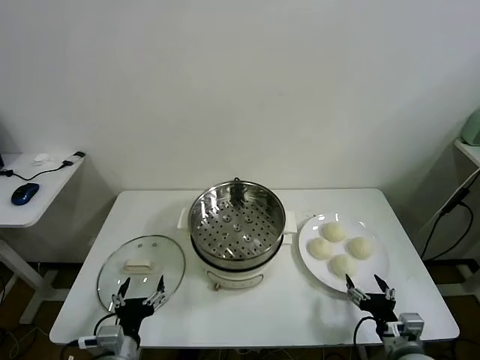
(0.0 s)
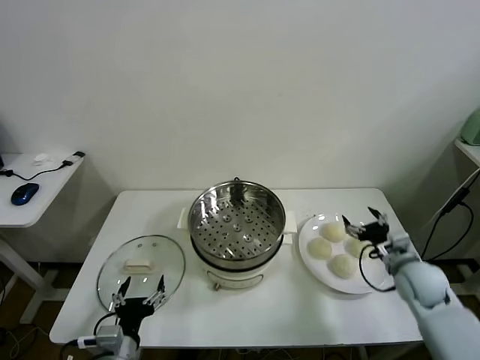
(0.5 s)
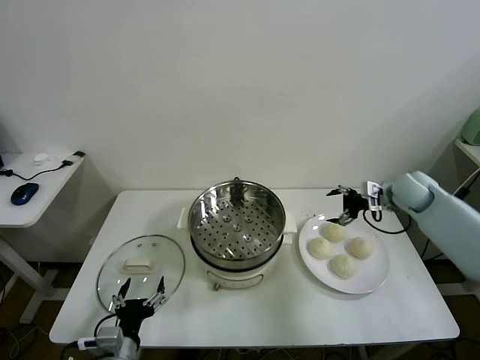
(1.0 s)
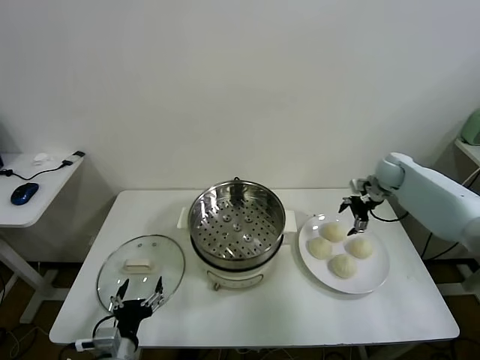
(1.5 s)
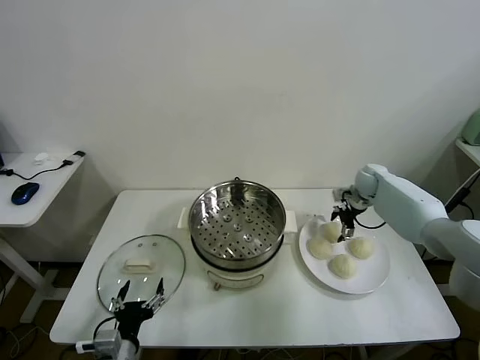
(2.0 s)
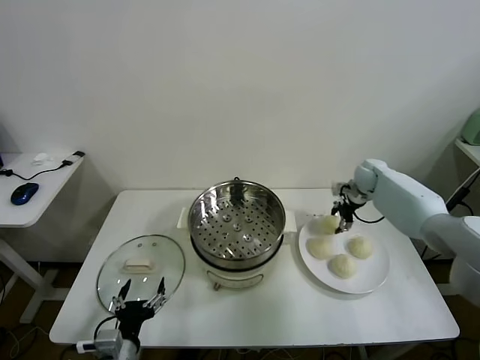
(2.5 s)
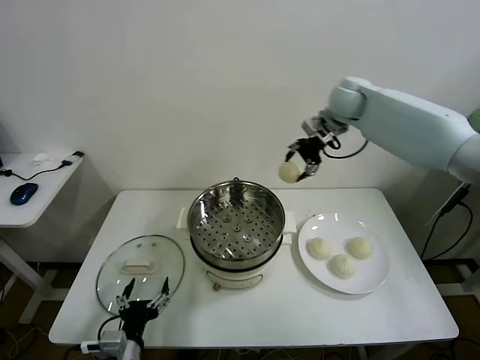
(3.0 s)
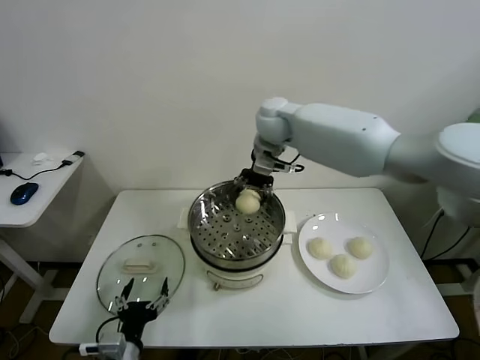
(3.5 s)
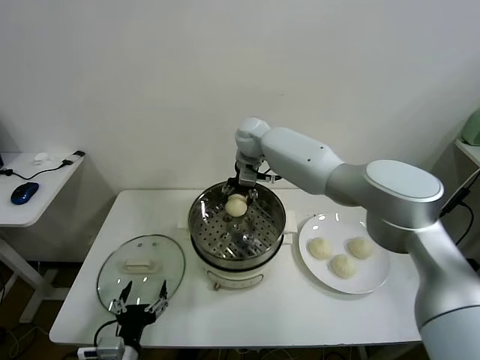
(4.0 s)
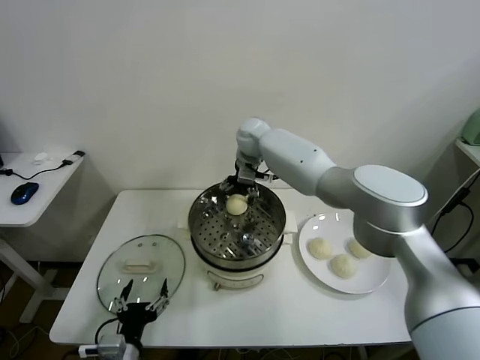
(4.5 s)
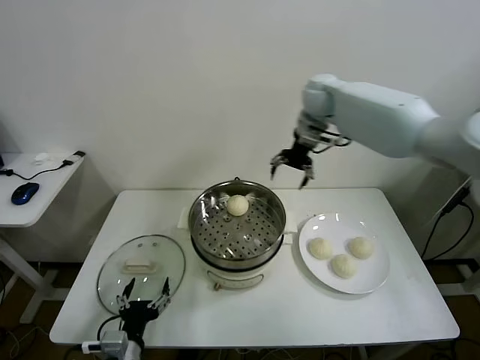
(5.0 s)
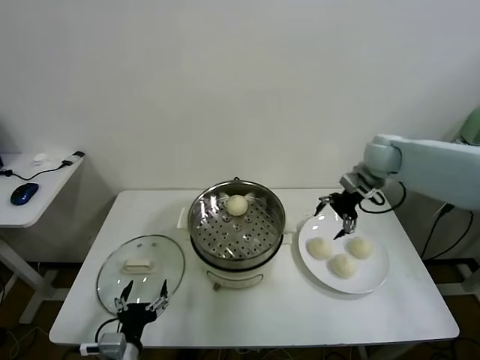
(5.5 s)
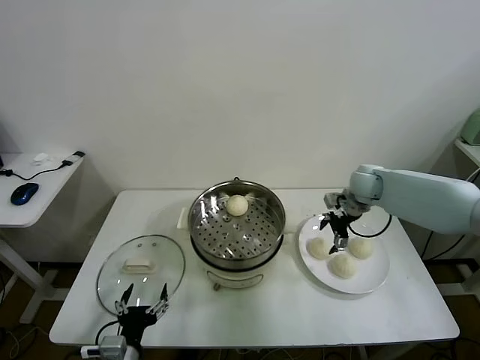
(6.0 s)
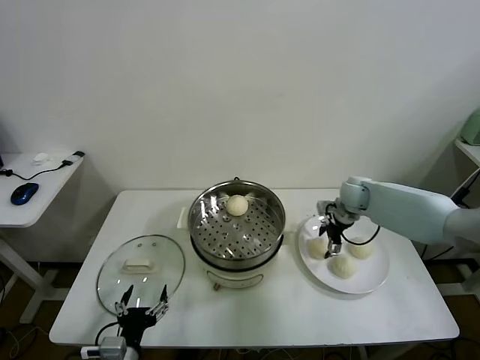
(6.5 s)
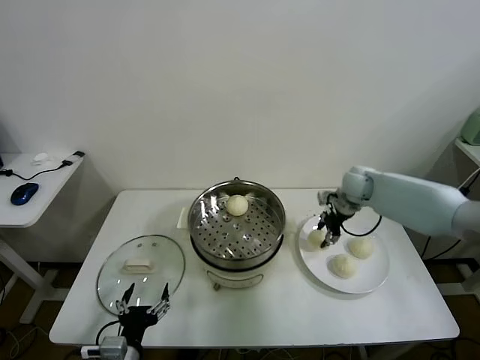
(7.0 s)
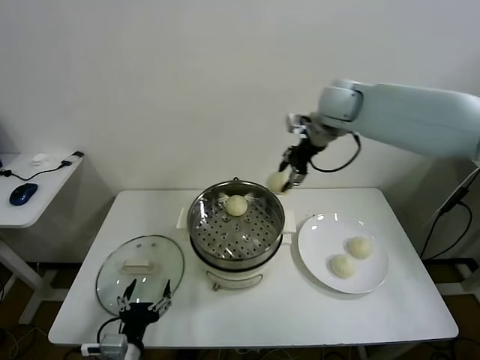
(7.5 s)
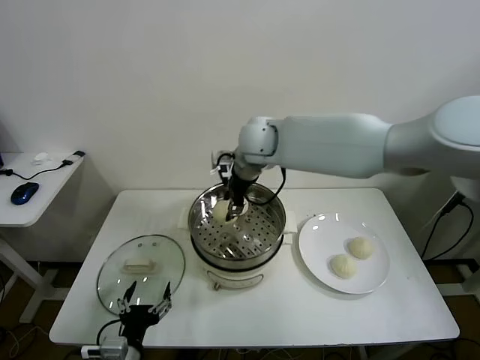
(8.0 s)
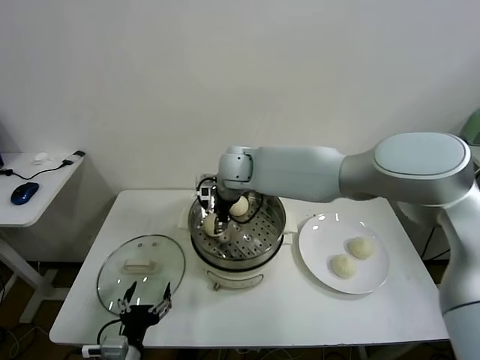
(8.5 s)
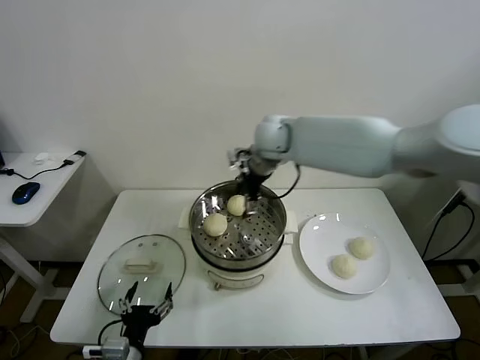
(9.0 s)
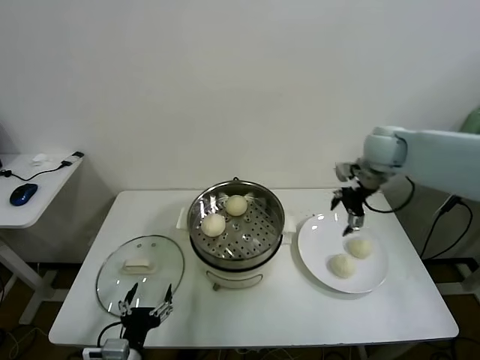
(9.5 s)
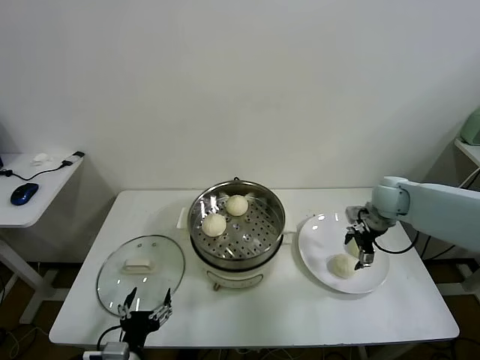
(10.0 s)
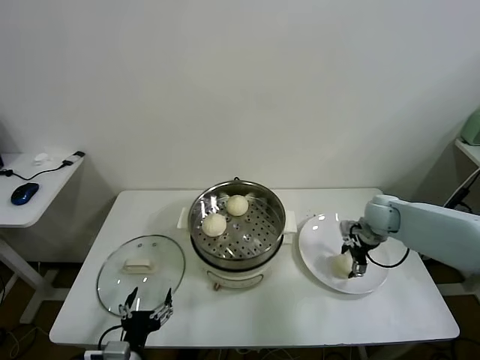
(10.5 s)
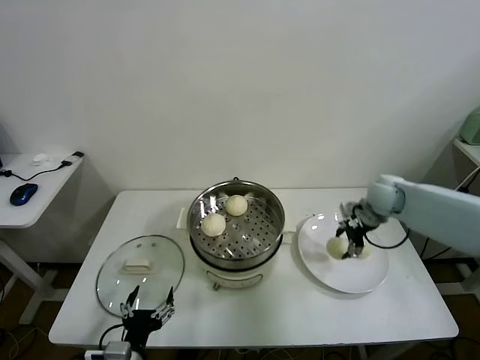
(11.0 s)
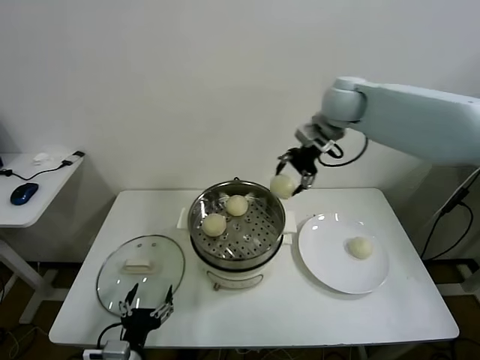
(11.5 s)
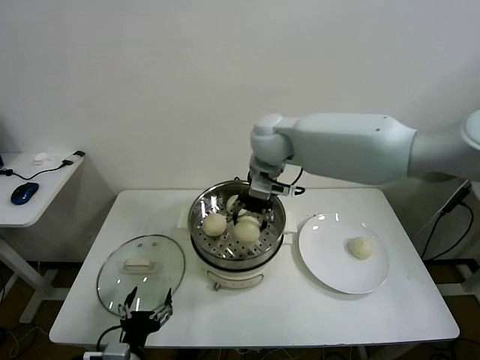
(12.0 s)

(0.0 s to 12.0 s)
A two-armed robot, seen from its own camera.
Task of the whole recording: take steamed baozi put them in steamer.
Step, 0.0 s - 2.0 s: Grasp the baozi in the plate with right gripper.
Step, 2.5 s - 4.5 s: Place the baozi on the steamer with right gripper.
Step, 5.0 s - 6.5 s: Grasp the baozi in the plate with right gripper.
Step, 7.0 s - 8.5 s: Place the baozi on the steamer with right gripper.
Step, 9.0 s - 10.5 s: Grasp the baozi in the plate with right gripper.
2.0 s - 4.0 s: The right gripper goes roughly 35 cm to the left and upward, and closes up.
4.0 s - 6.0 s: The right gripper moves to the right, about 30 cm, and opens its fingers.
6.0 s - 8.0 s: The right gripper shifts some 35 cm to the left and upward, and closes.
8.0 s - 10.0 s: The right gripper moves to the right and downward, about 35 cm, and opens.
10.0 s - 12.0 s: The right gripper travels to the left and upward by about 35 cm, and closes up.

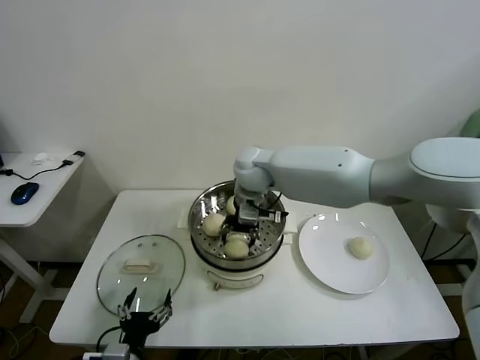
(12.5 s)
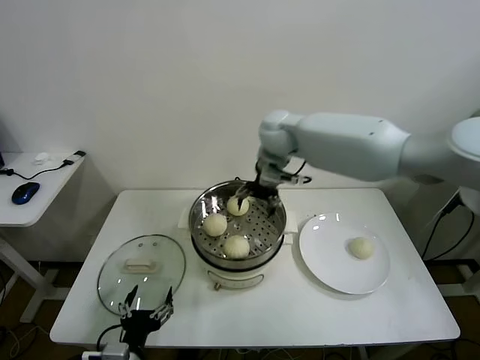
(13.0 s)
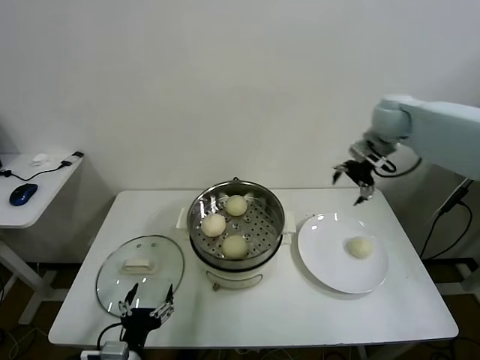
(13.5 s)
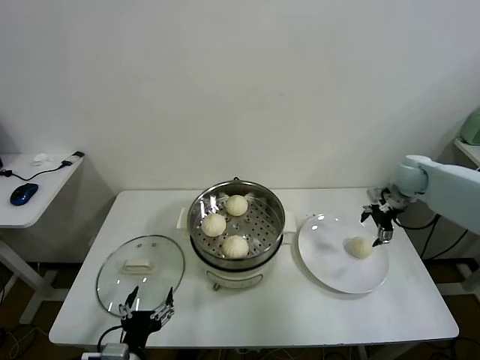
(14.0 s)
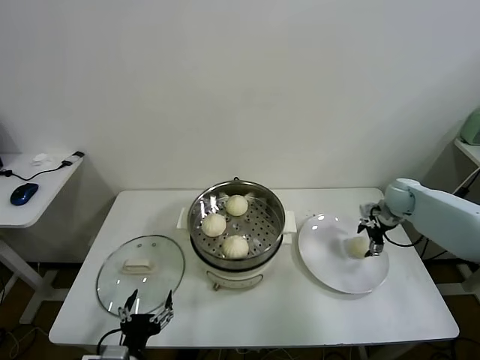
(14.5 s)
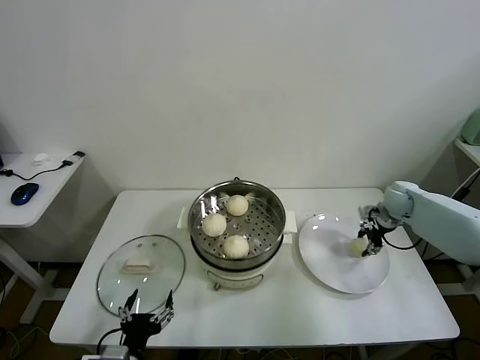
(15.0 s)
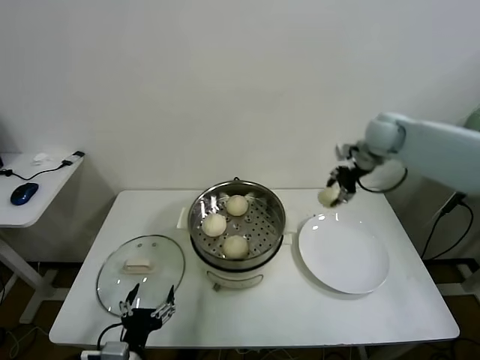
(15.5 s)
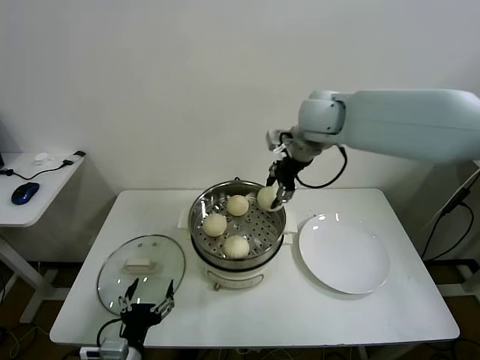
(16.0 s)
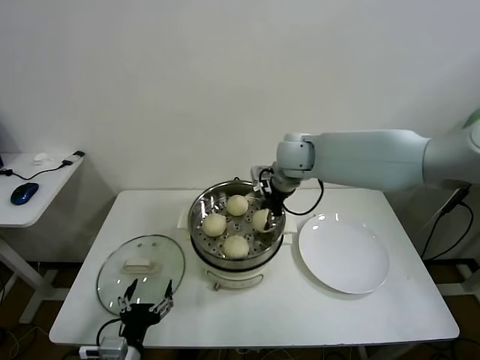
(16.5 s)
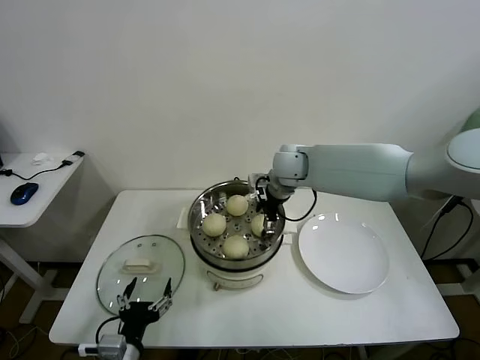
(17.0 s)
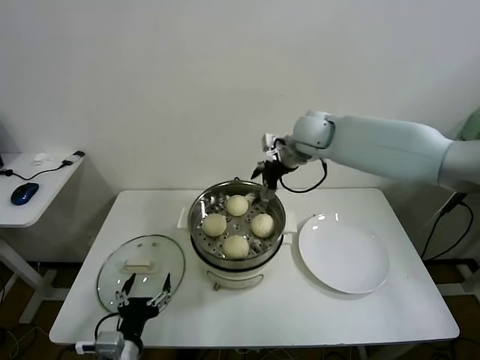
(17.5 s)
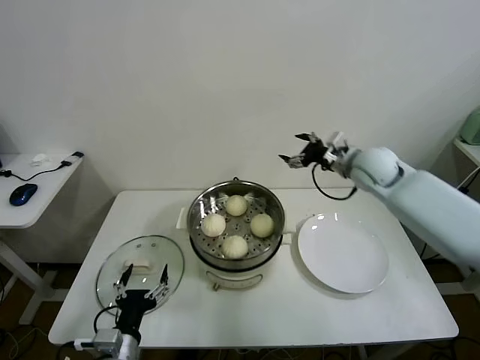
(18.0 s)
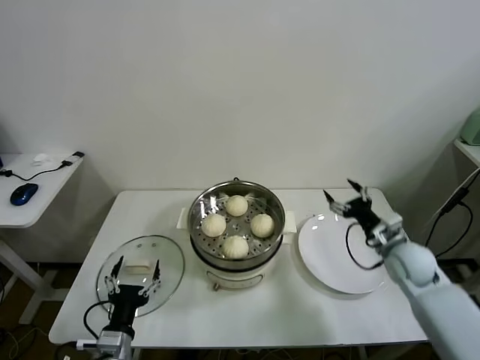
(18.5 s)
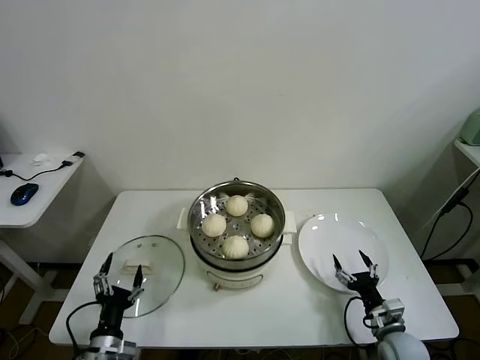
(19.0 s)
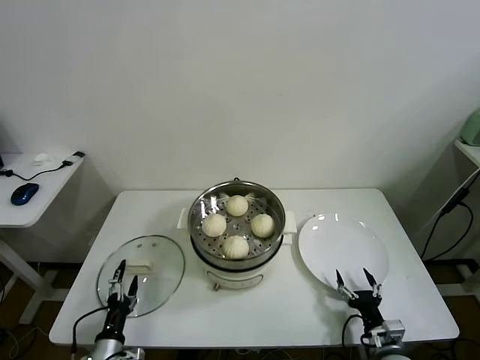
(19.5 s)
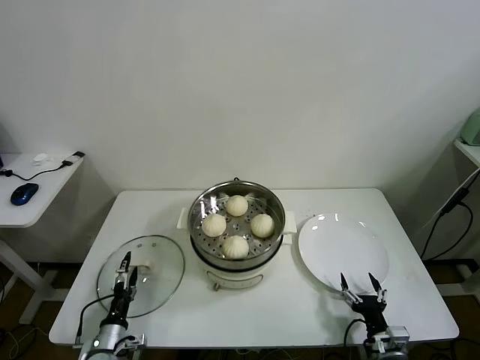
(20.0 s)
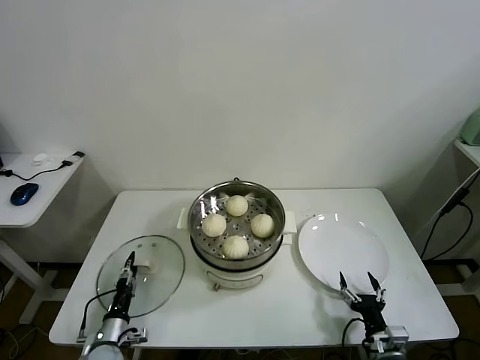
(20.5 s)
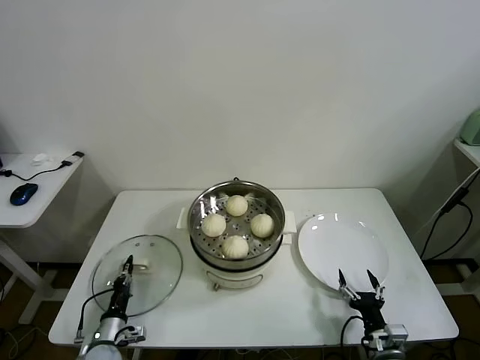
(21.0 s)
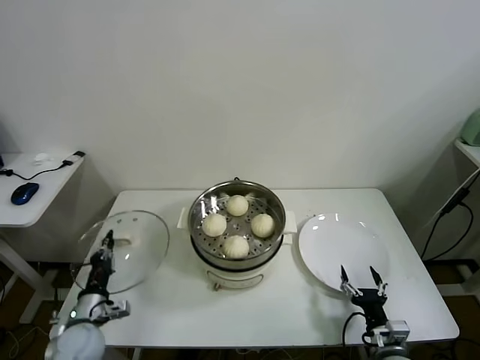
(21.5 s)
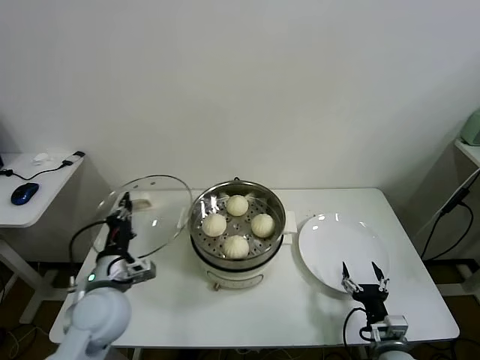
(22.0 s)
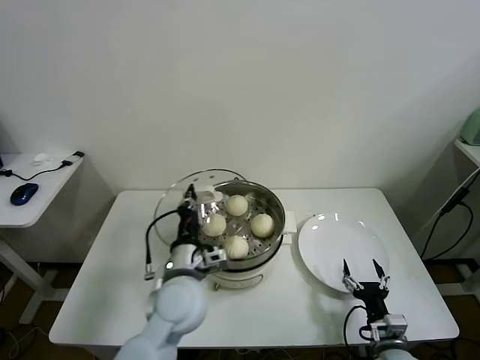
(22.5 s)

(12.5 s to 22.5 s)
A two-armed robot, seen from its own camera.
Task of the whole recording: take steamed baozi put them in steamer.
Step, 13.0 s - 15.0 s: Grasp the baozi in the plate with right gripper.
Step, 15.5 s - 17.0 s: Place the baozi on the steamer with right gripper.
Step, 17.5 s - 20.5 s: Grasp the pot lid with left gripper.
12.5 s - 14.5 s: The right gripper goes some 40 cm to the right, and opens.
14.5 s - 16.5 s: The right gripper travels to the left and upward by approximately 35 cm, and closes its fingers.
16.5 s - 18.5 s: The right gripper shifts some 35 cm to the right, downward and backward, and opens its fingers.
18.5 s - 20.5 s: The left gripper goes roughly 15 cm downward, to the left and forward, and closes up. The right gripper moves backward and downward, approximately 25 cm.
20.5 s - 22.5 s: The left gripper goes roughly 35 cm upward and to the right, and closes up.

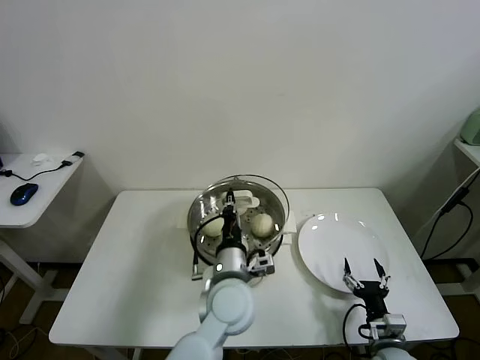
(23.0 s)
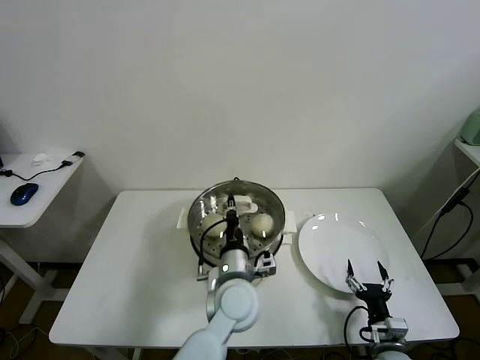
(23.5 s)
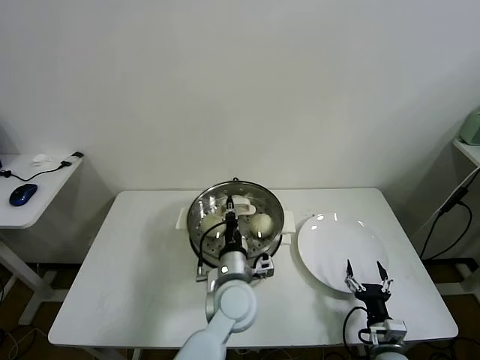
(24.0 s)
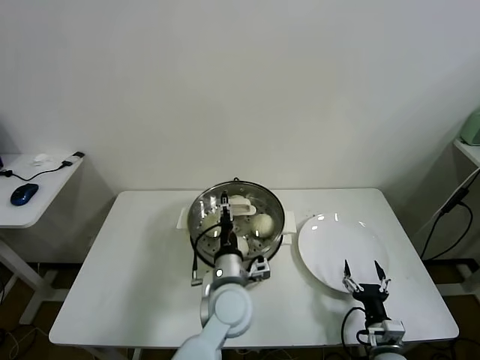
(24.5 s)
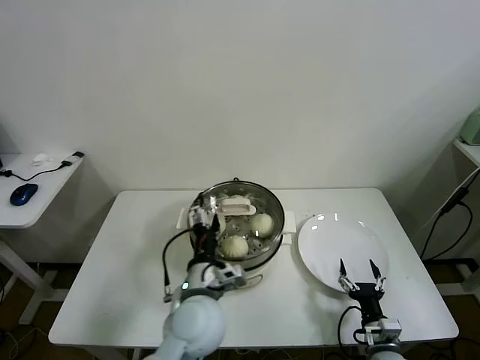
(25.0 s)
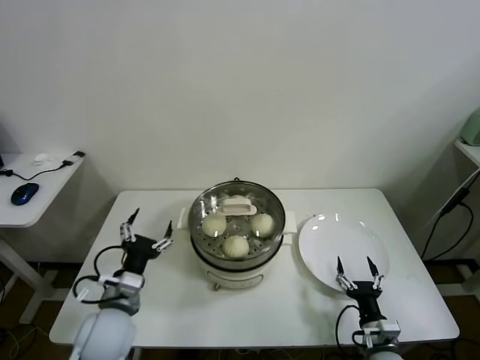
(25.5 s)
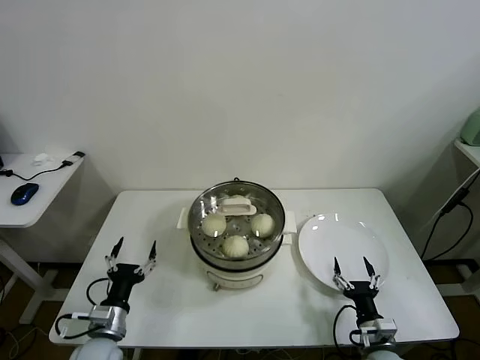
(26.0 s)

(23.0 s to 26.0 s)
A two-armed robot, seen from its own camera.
Task of the whole recording: take steamed baozi put them in steamer.
23.0 s - 24.5 s: The left gripper opens up.
24.5 s - 26.0 s: The left gripper heads to the left, covering some 30 cm, and opens up.
